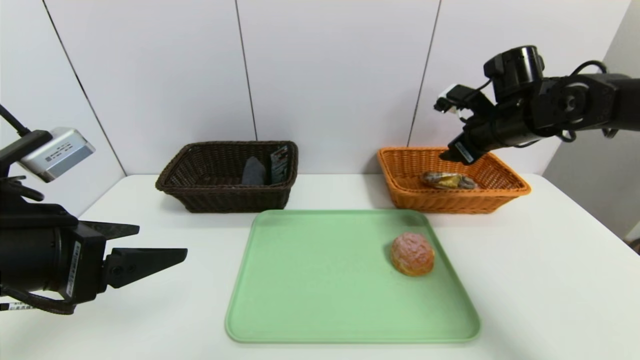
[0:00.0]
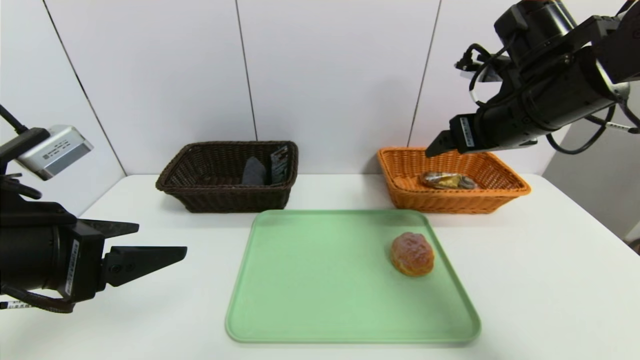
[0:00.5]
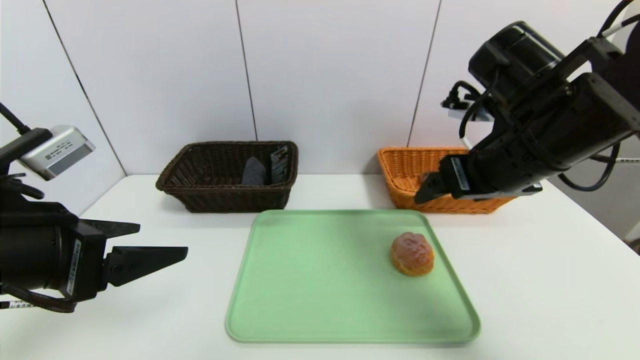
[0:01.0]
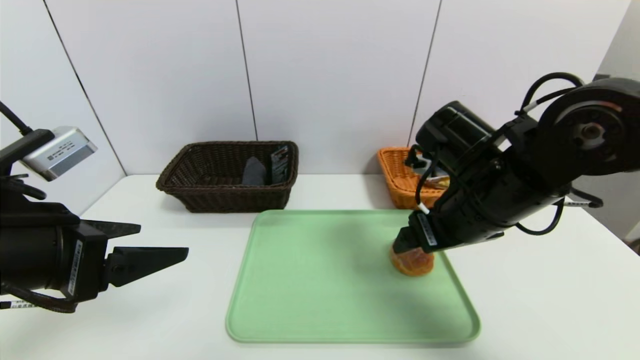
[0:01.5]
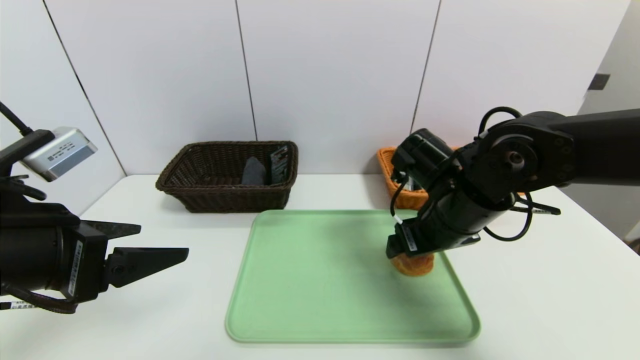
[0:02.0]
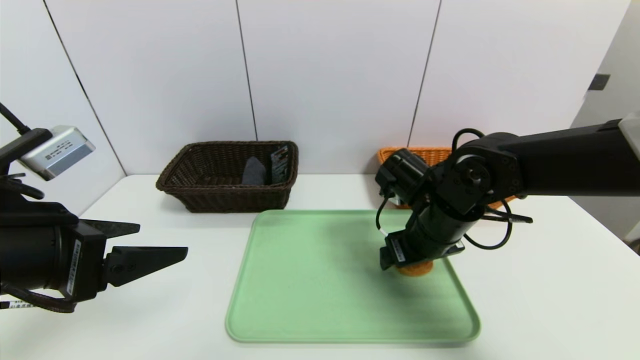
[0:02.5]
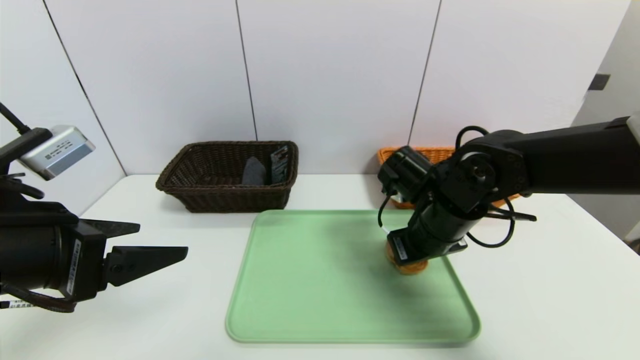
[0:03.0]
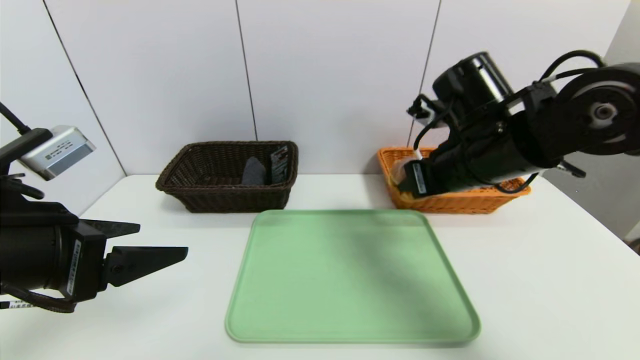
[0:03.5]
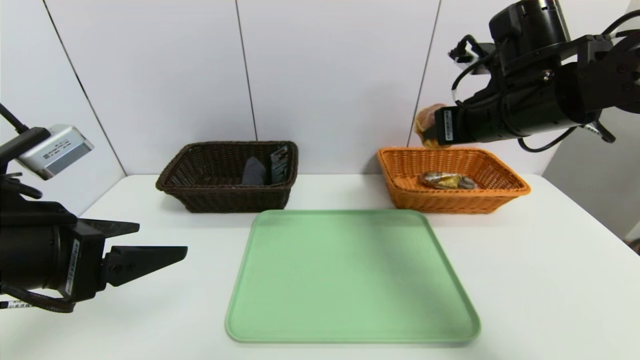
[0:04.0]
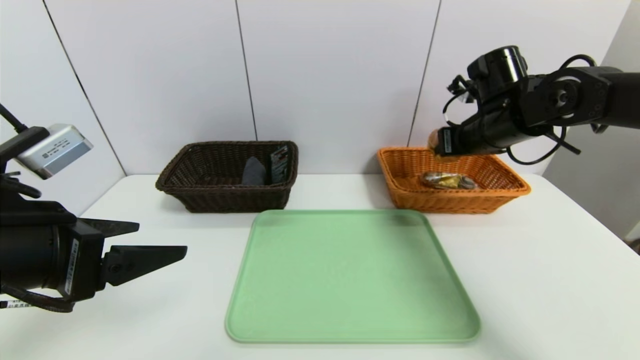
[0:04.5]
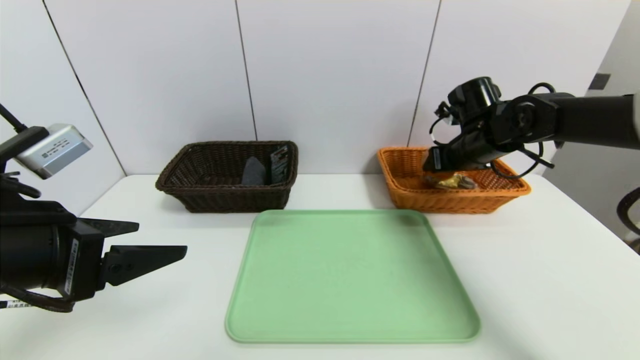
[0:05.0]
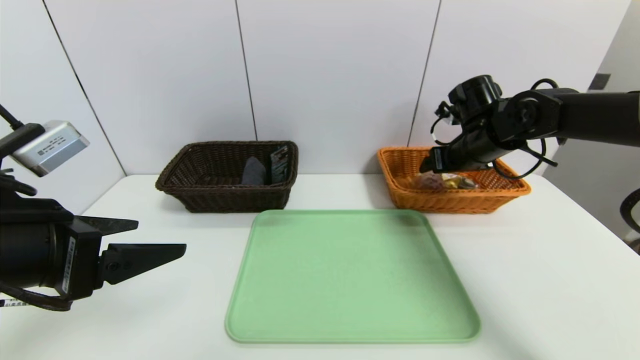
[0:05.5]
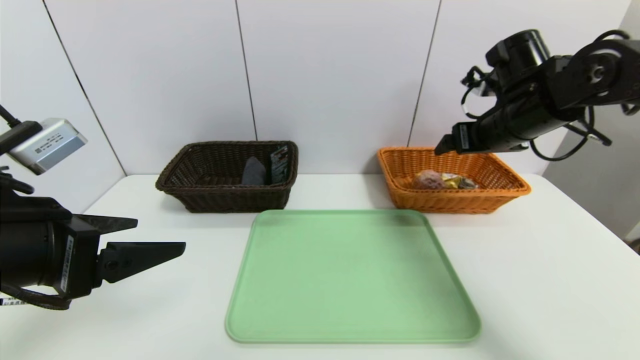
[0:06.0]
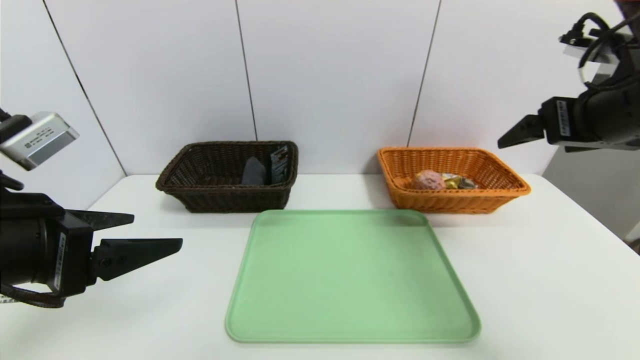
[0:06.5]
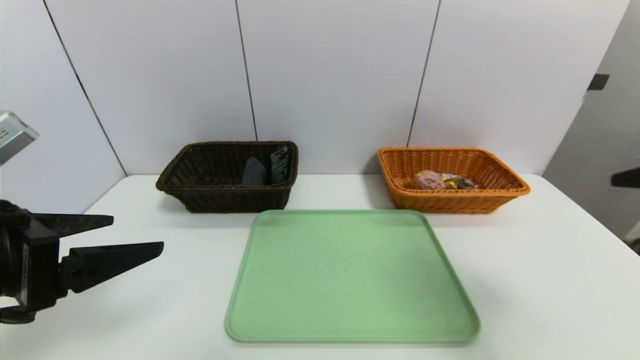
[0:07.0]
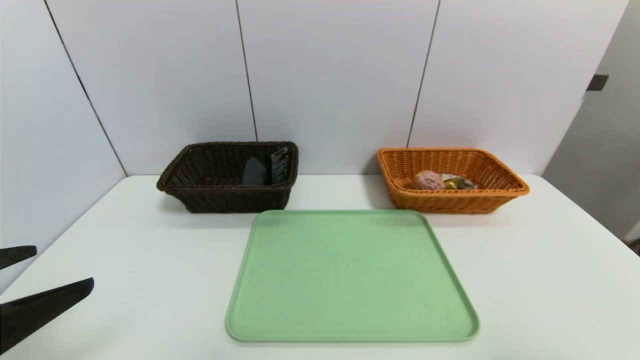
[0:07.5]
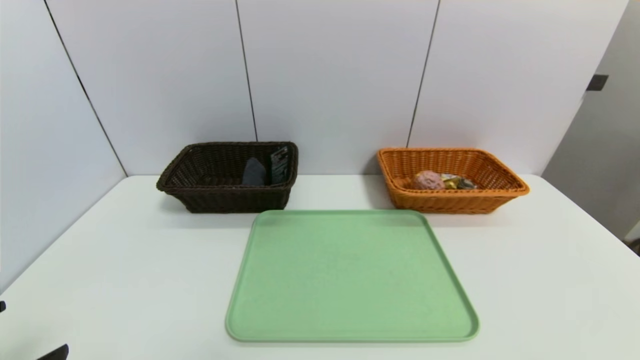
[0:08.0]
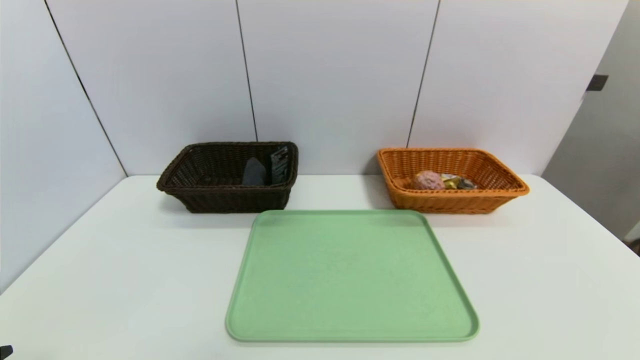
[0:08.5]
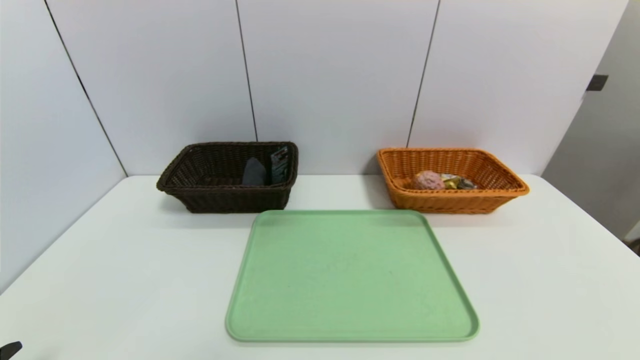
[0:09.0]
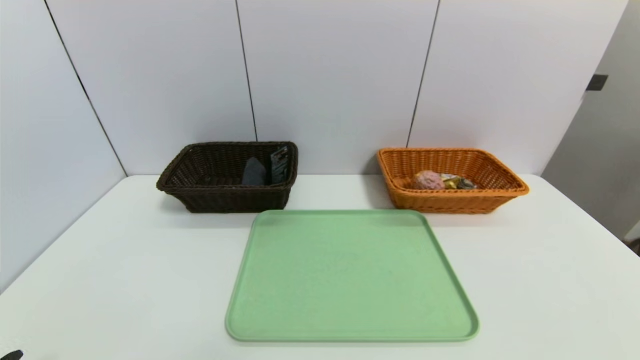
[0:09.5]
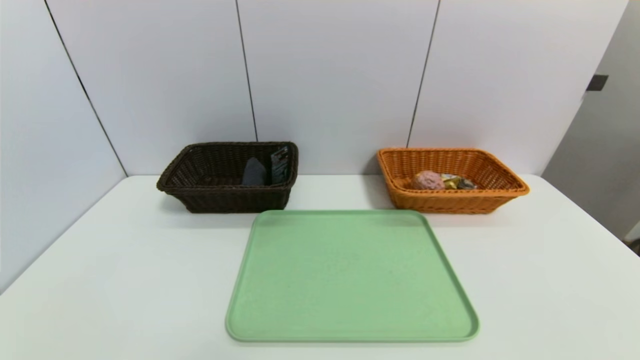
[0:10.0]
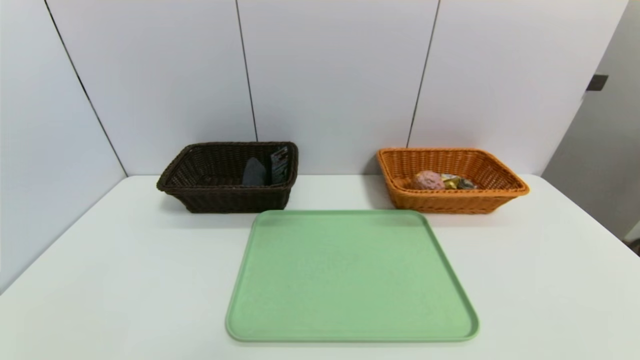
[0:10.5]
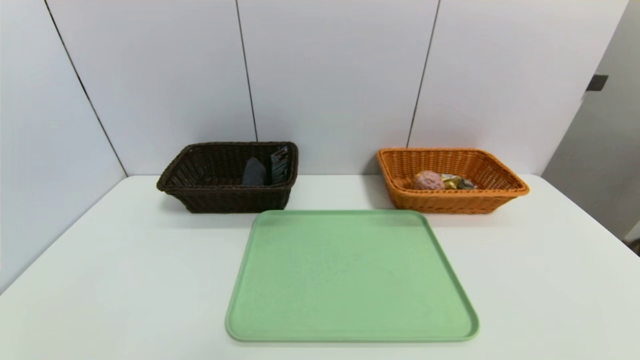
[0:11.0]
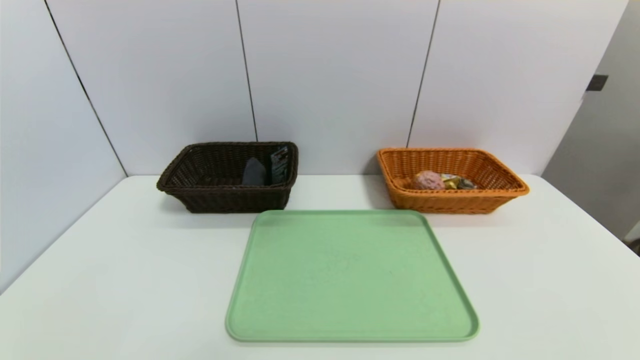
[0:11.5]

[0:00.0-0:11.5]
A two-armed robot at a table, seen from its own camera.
Task of the whole recording: place the food in the right basket with the right gripper, and place the non food items in the left basket with the left gripper.
Step, 0:00.5 to 0:05.5: Grasp the round bread and put it in the right basket.
0:00.0 to 0:02.0: The right gripper is displaced to the left, backward and downward by approximately 15 cm.
0:02.0 to 0:04.0: The right gripper travels upward and to the right by about 15 cm, and closes its fingers.
0:04.0 to 0:06.0: The right gripper is displaced forward and to the right by some 5 cm, and opens its fingers.
0:06.0 to 0:07.5: The right gripper travels backward by some 35 cm. Meanwhile the left gripper goes about 10 cm backward.
0:07.5 to 0:09.5: The left gripper is displaced downward and backward by some 15 cm.
